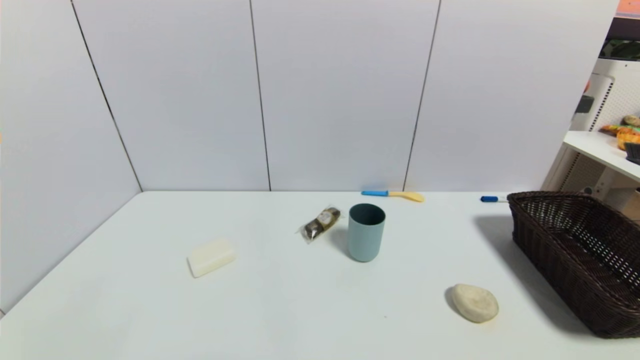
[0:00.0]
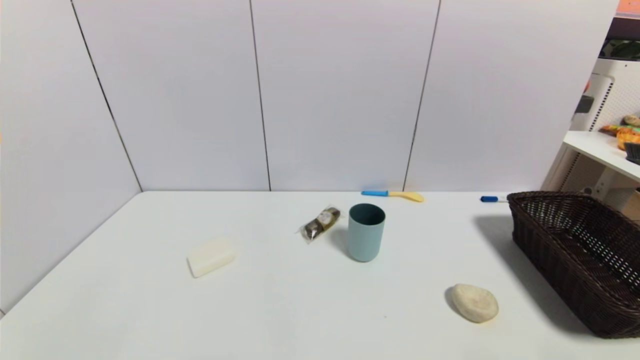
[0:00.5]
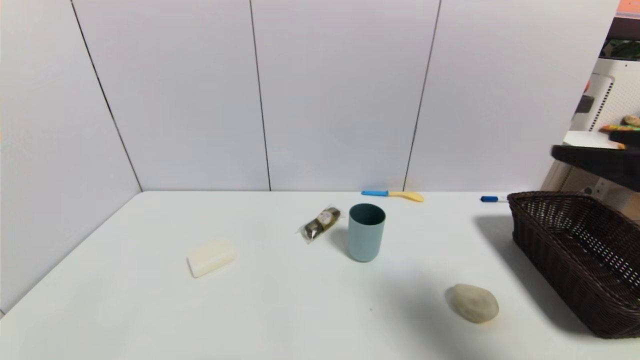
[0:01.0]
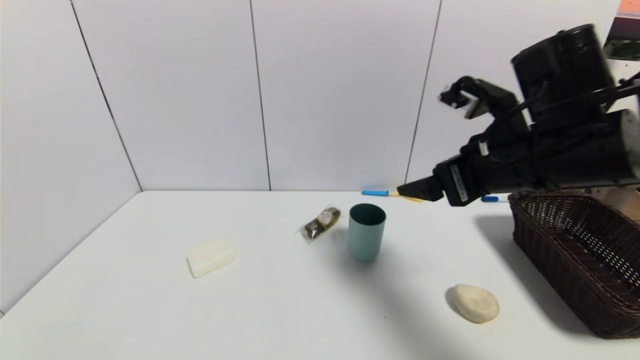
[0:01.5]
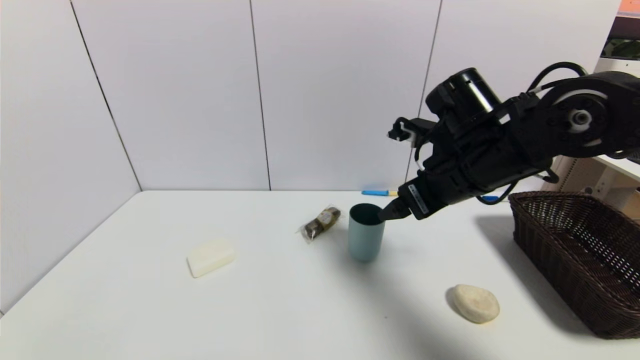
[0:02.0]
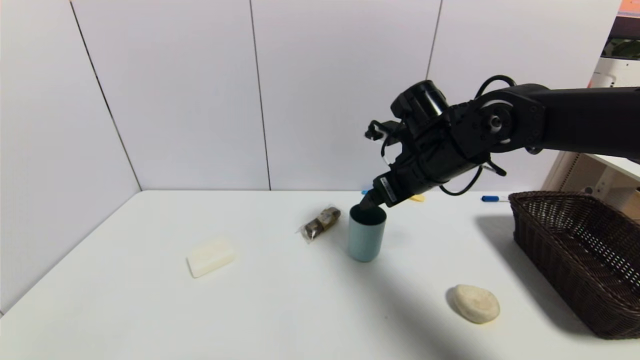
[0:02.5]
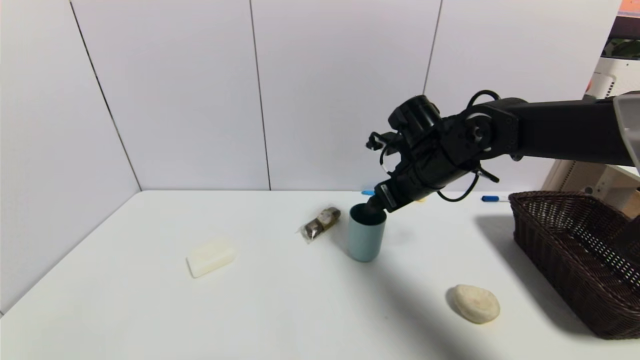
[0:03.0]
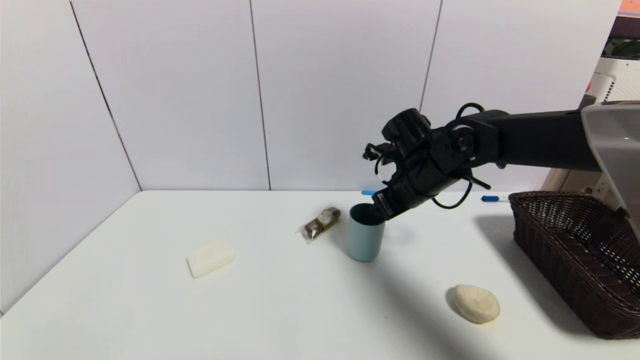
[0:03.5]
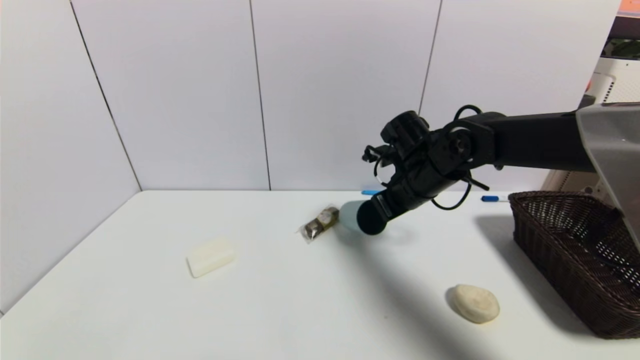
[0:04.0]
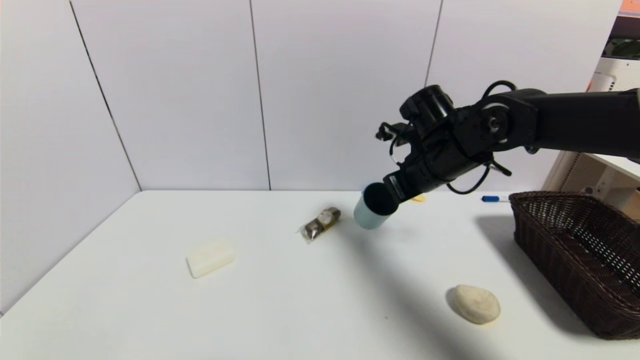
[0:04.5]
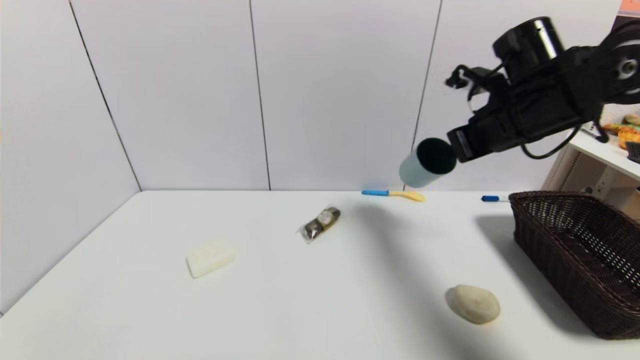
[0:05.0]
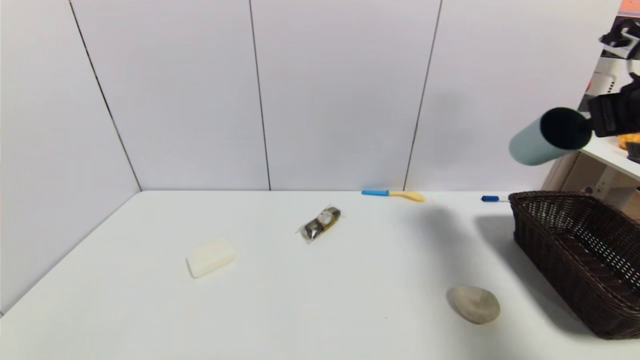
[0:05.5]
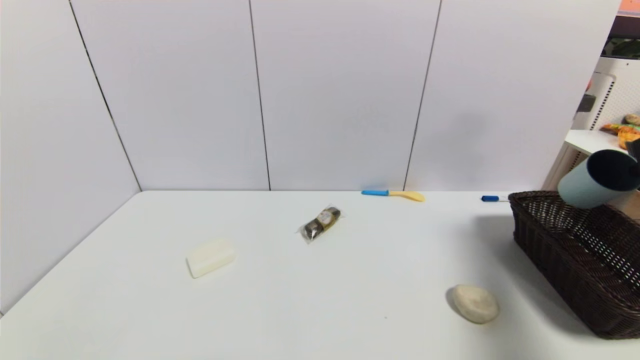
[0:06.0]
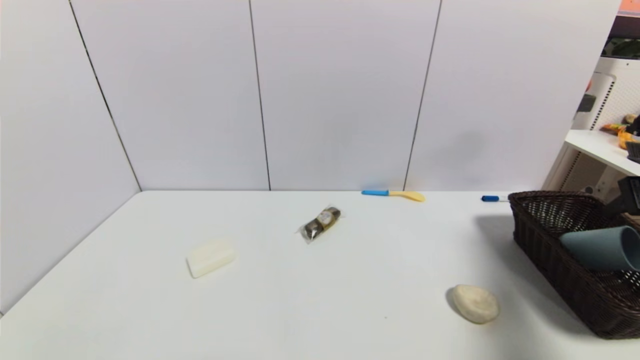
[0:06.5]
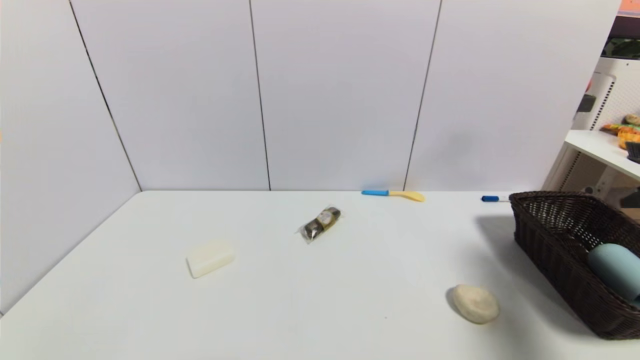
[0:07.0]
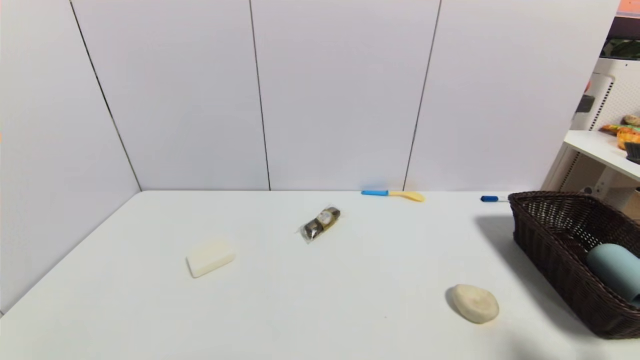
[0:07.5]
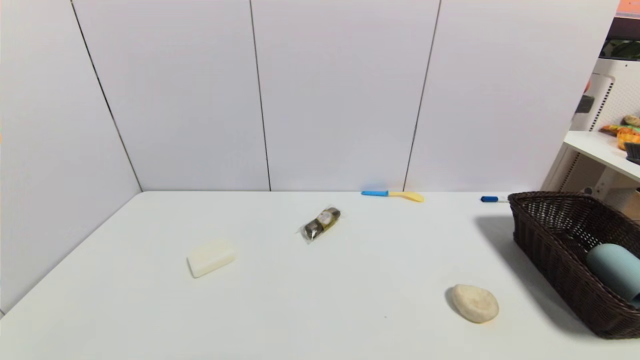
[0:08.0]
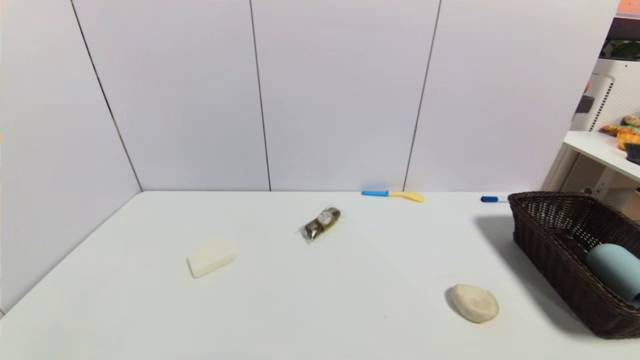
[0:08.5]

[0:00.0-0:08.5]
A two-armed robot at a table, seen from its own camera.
Task of the whole recording: use a gripper to pick the target object and place on the brown basket.
Step, 0:00.0 to 0:04.0: Grasp the blue cup with the right gripper.
Step, 0:04.5 to 0:06.5: Place the blue cup into the basket with the right gripper.
0:00.0 to 0:02.0: The right gripper travels forward, to the left and upward by some 40 cm.
0:02.0 to 0:04.0: The right gripper travels forward and downward by some 10 cm, and closes.
0:04.0 to 0:06.5: The right gripper moves to the right and backward, roughly 30 cm, and opens up.
0:06.5 to 0:08.5: The right gripper goes some 30 cm backward and downward, and opens.
